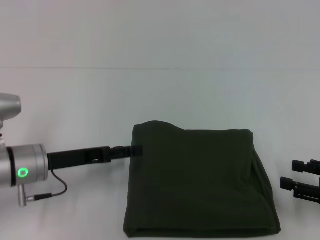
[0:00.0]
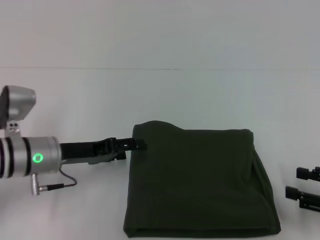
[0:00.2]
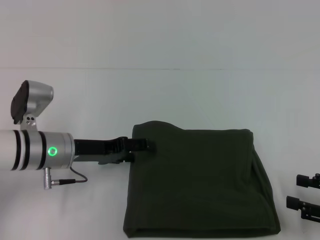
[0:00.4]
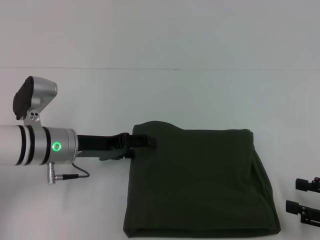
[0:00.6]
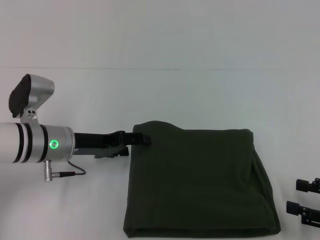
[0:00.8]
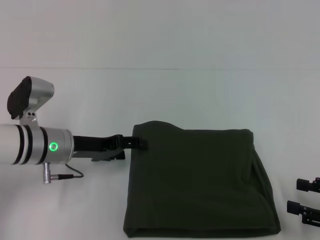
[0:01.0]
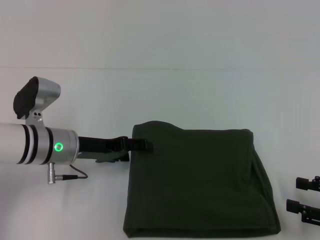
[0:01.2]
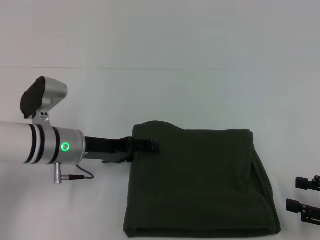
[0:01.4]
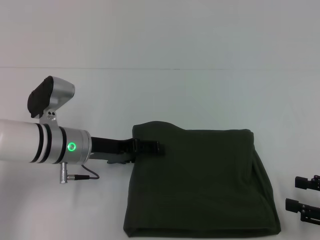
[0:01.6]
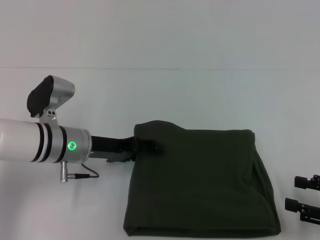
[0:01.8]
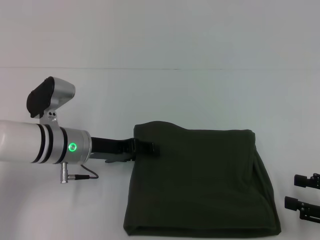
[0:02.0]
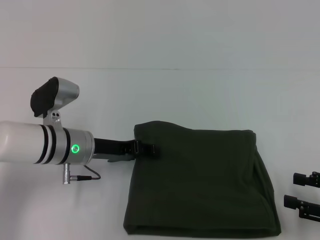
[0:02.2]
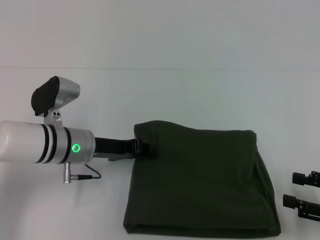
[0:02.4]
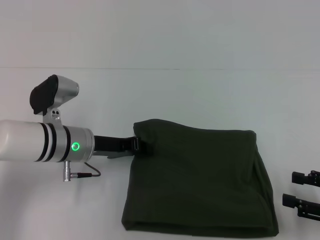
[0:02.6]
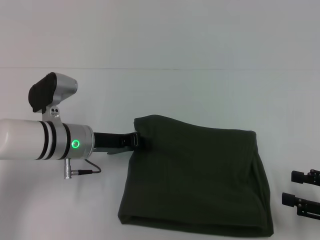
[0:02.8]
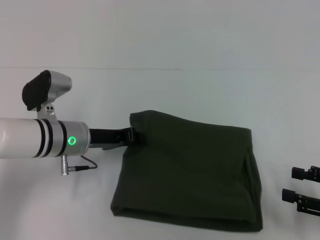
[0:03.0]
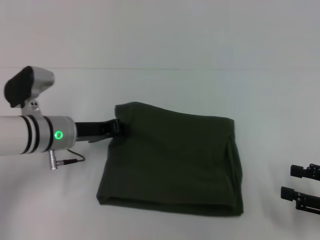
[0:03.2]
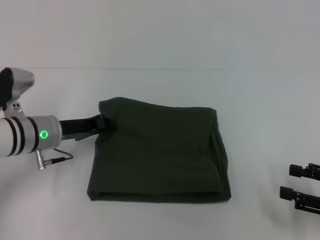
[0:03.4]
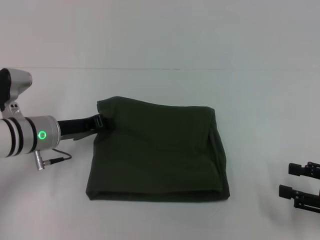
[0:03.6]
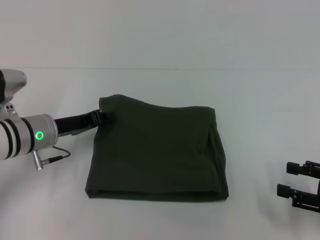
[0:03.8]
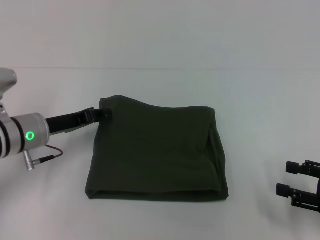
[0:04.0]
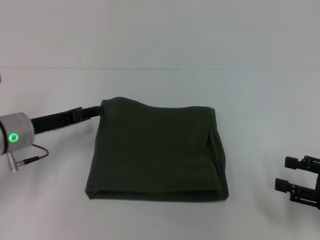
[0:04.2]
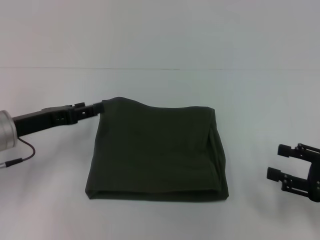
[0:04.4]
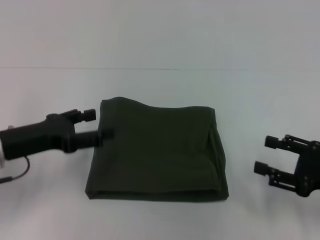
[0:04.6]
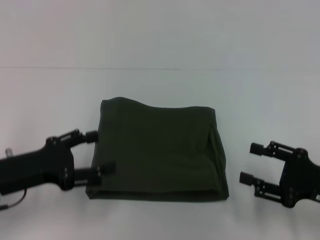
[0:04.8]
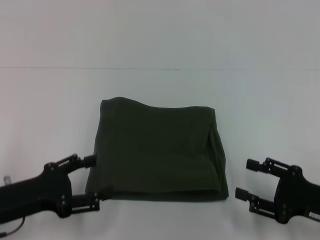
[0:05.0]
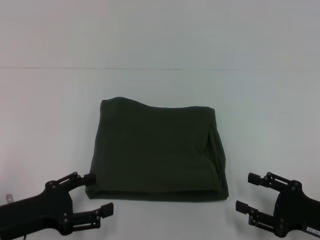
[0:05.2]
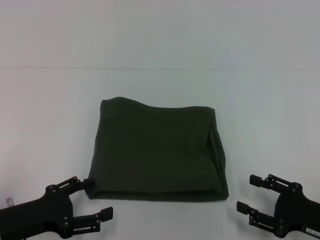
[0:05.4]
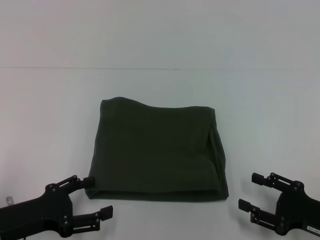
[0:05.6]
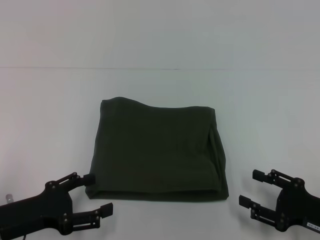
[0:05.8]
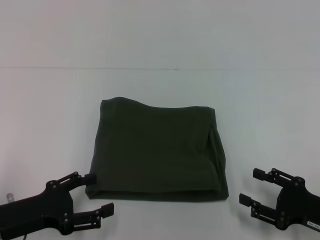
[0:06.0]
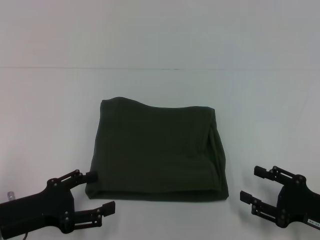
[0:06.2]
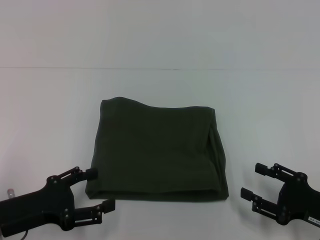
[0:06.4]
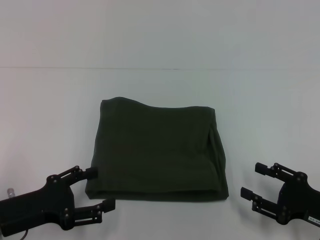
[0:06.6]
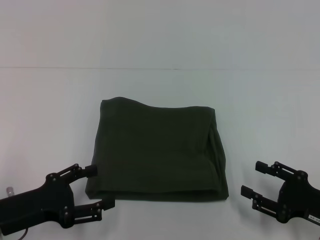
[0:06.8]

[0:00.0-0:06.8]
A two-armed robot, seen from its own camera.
0:00.0 to 0:01.4: The left gripper shifts by approximately 5 cm.
0:01.4 to 0:02.8: The left gripper closes its fingers.
0:02.8 to 0:04.0: The left gripper heads to the left, covering some 5 cm.
0:04.0 to 0:05.4: The left gripper travels backward by approximately 15 cm, and opens its fingers. Meanwhile the right gripper goes approximately 10 cm to the left and downward.
0:05.4 to 0:06.8: Both grippers stay put.

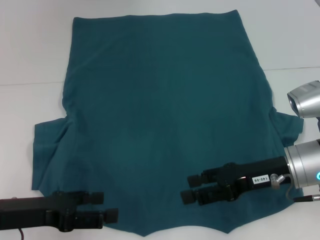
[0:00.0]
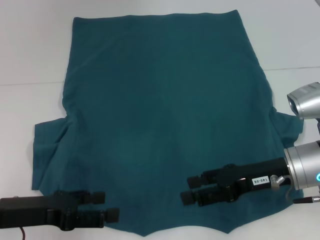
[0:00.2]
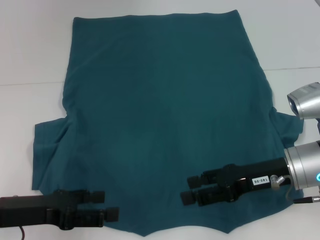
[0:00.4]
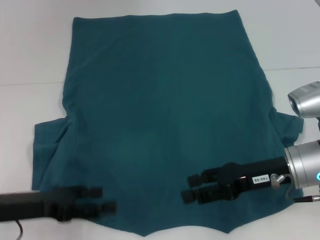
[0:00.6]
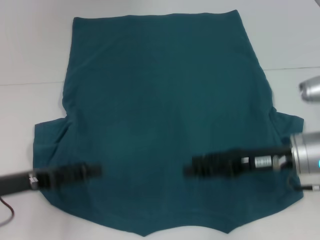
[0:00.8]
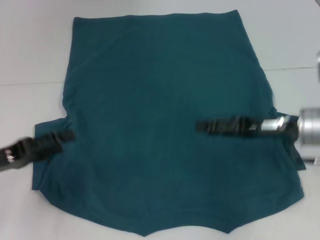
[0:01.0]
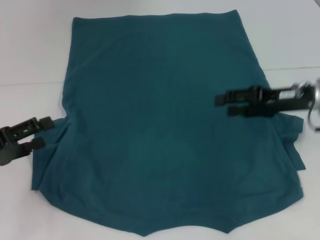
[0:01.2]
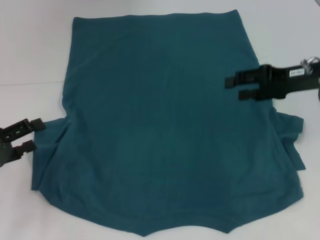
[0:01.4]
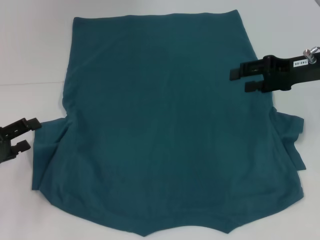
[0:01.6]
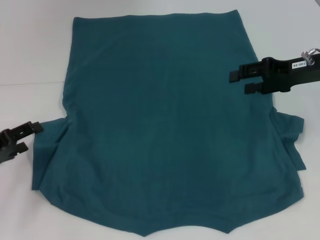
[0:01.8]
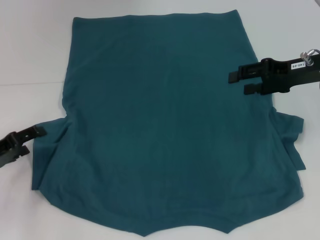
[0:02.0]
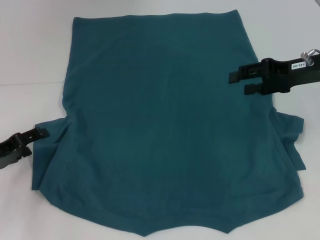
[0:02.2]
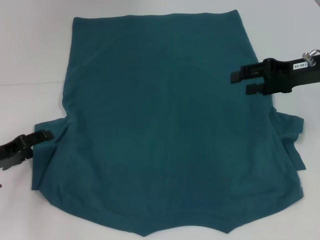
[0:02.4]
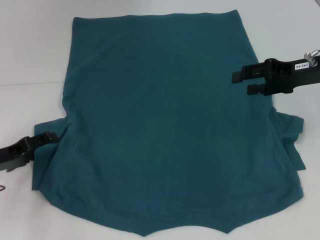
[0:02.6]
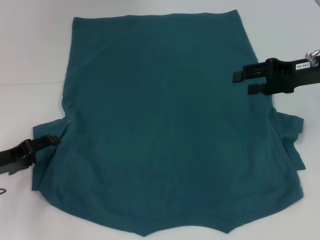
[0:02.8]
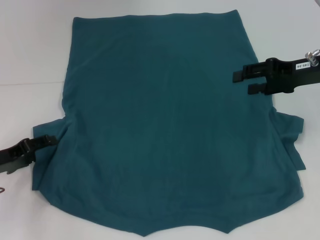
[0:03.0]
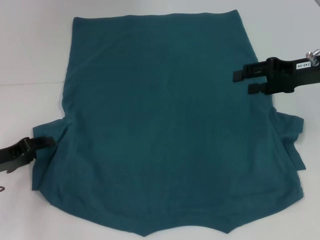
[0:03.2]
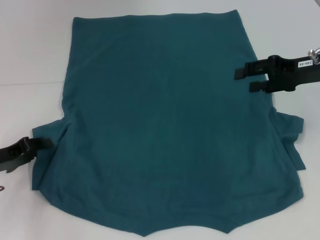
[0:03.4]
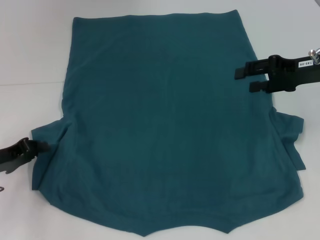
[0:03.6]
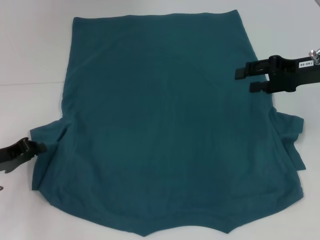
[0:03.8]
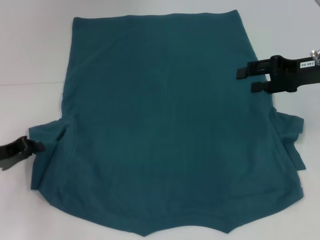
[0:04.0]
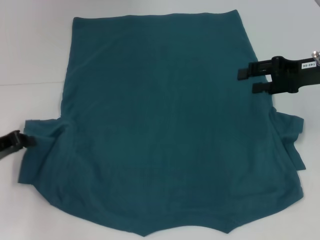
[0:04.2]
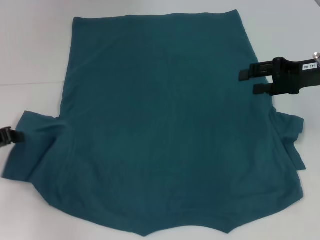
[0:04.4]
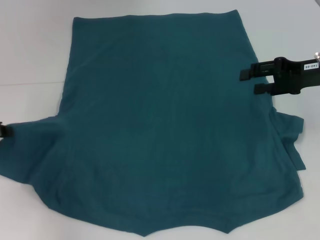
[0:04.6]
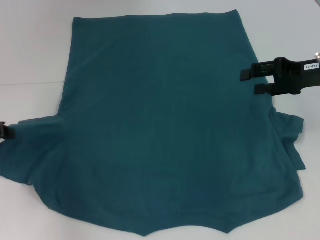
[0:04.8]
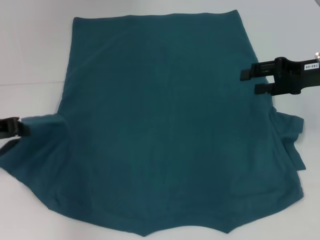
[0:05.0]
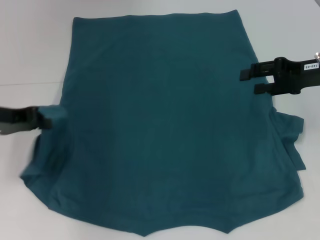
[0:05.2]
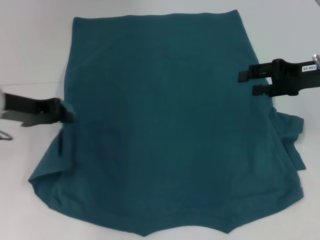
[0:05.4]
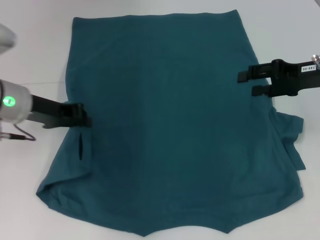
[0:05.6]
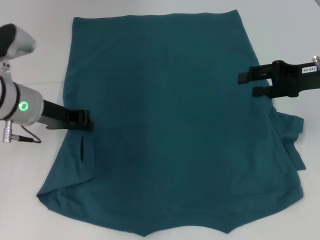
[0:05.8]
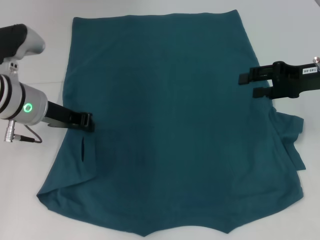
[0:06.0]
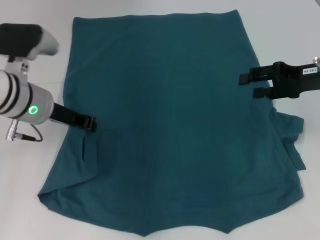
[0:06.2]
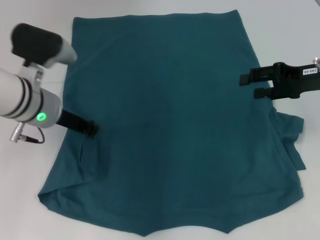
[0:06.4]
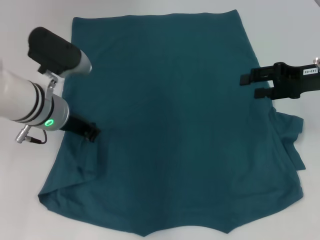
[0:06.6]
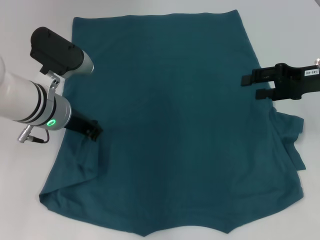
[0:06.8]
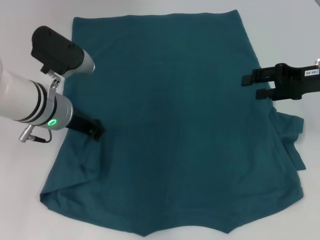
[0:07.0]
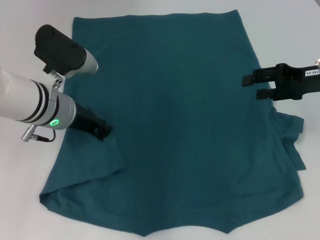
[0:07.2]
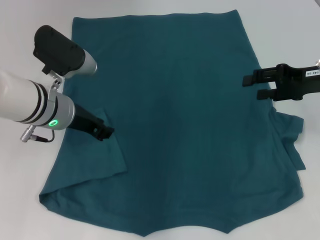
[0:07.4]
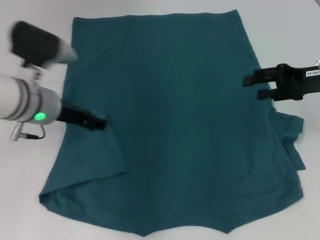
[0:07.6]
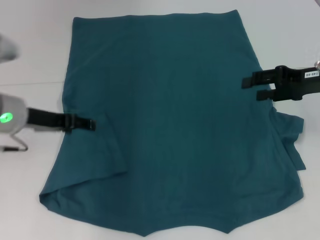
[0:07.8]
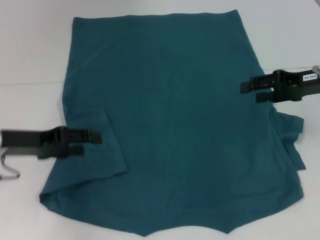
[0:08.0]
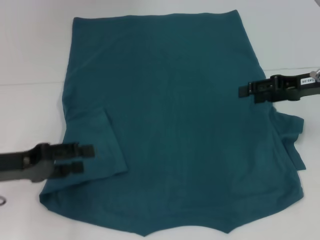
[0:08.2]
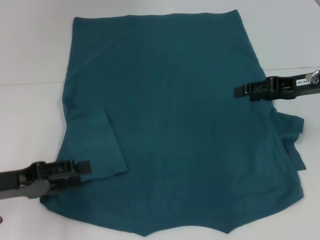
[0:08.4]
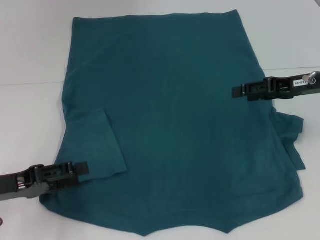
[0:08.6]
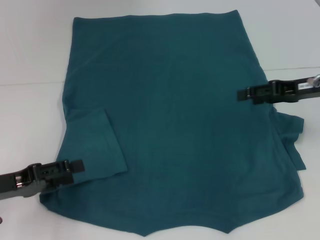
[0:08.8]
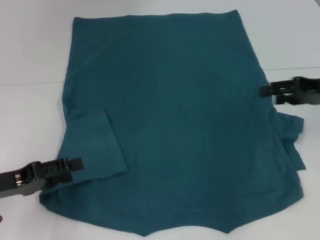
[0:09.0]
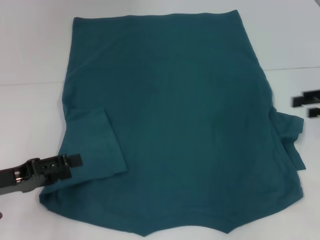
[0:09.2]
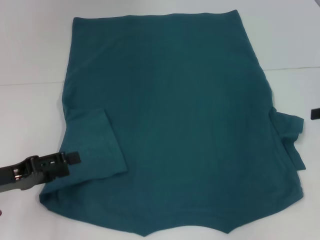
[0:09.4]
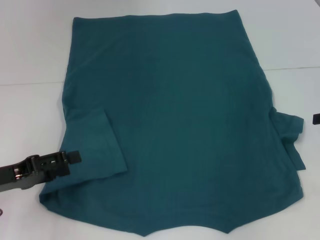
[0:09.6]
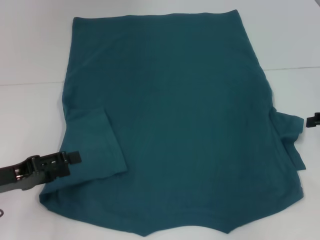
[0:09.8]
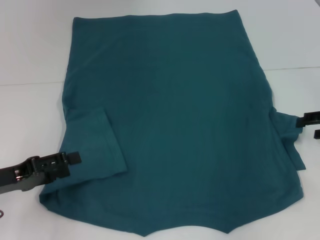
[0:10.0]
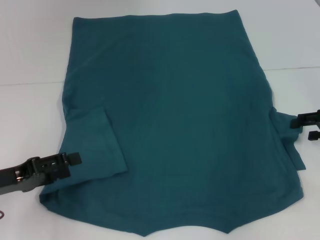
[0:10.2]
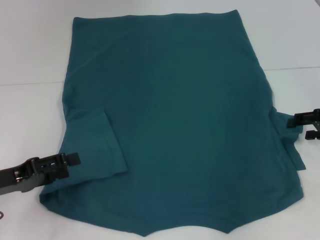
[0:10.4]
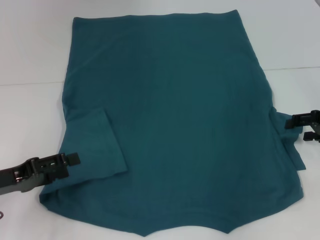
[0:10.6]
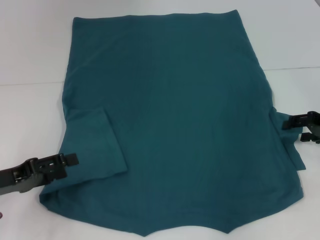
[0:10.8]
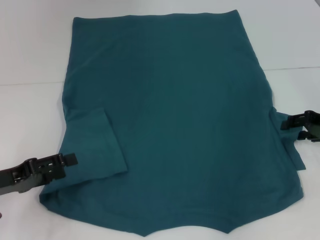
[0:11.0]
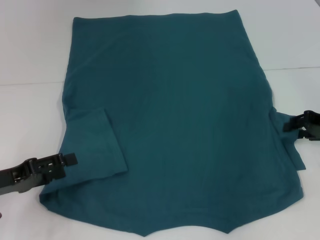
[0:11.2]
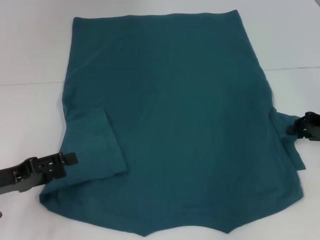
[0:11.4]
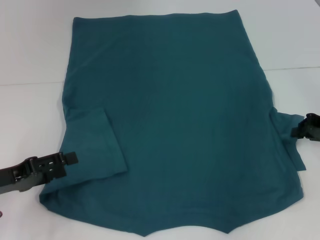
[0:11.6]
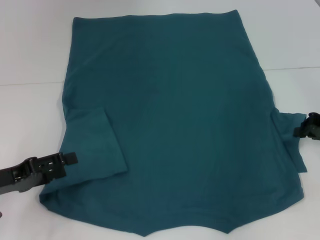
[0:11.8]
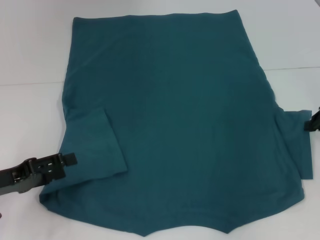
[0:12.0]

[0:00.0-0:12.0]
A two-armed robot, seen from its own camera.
Step, 0:00.0 to 0:07.4: Fold the bottom left sleeve with your left hand.
0:00.0 to 0:01.6: The right gripper travels forward, upward and to the right by about 15 cm; the left gripper heads to the left, covering some 10 cm.
0:01.6 to 0:03.0: The grippers stay close to where they were, moving slightly.
0:03.0 to 0:04.4: The left gripper changes place by roughly 5 cm, and closes up.
0:04.4 to 0:06.0: The left gripper goes about 15 cm to the right and upward.
0:06.0 to 0:07.6: The left gripper opens.
0:07.6 to 0:09.0: The left gripper shifts some 20 cm backward, to the left and downward, and opens up.
0:09.0 to 0:10.4: The right gripper goes some 5 cm downward.
0:10.4 to 0:12.0: The right gripper closes up.

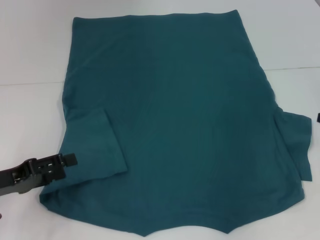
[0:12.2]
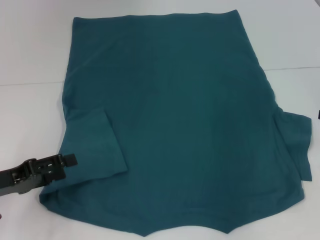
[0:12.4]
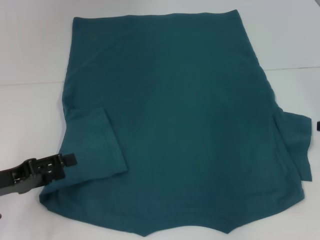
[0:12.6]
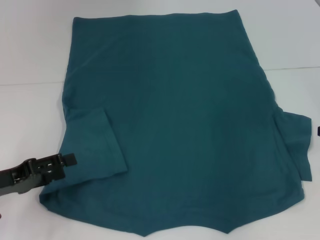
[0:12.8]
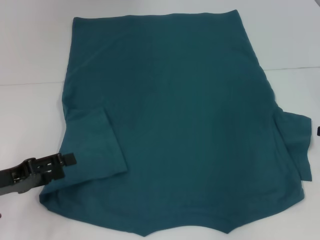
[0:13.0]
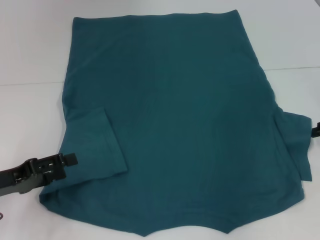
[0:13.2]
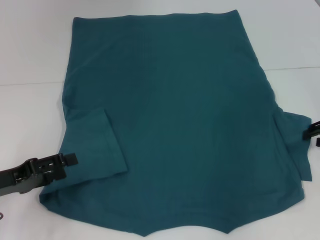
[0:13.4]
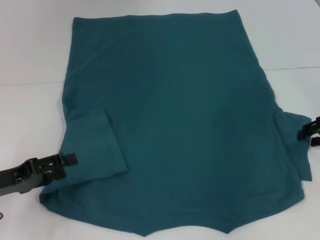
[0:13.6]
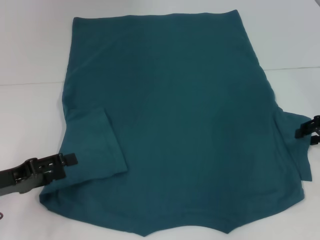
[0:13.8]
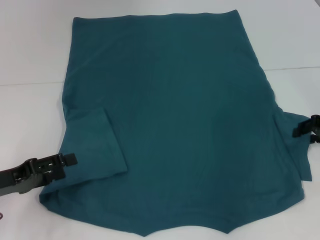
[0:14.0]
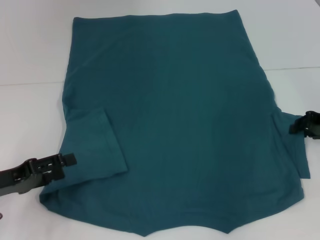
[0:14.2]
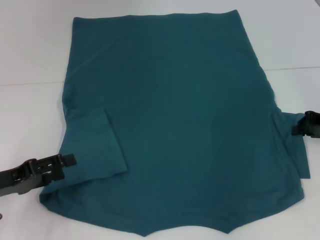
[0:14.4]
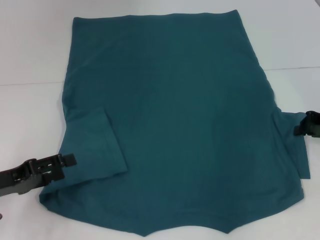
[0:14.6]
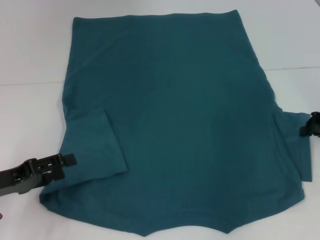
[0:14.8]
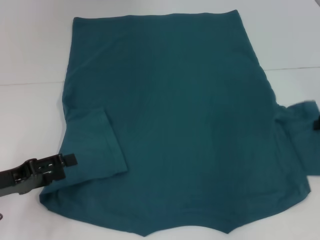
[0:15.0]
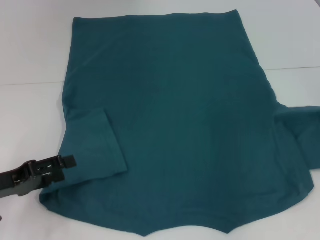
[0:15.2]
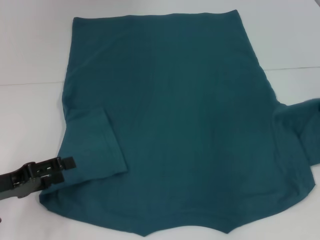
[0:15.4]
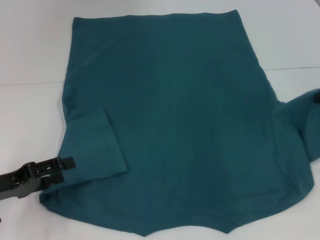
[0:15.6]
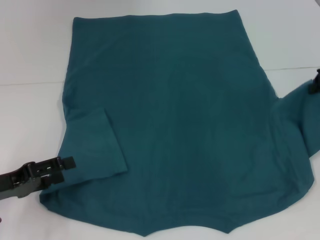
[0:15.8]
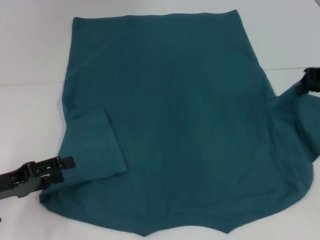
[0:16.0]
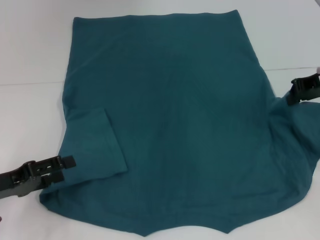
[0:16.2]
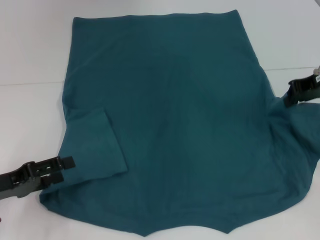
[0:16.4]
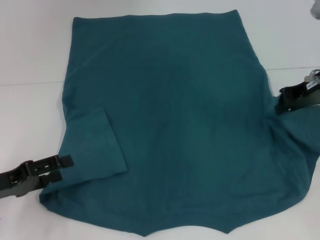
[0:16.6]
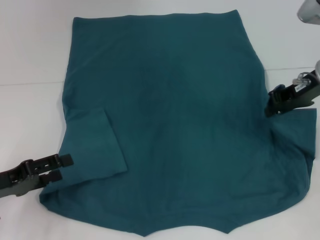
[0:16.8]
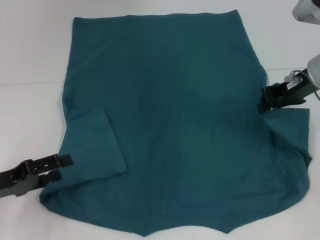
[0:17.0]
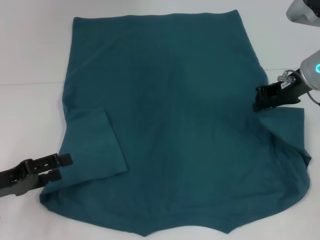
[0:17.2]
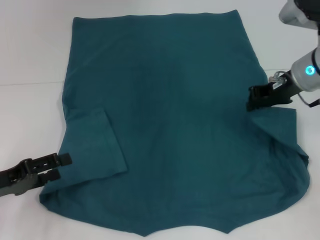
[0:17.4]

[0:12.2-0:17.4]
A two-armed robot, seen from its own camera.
0:12.2 to 0:14.0: The right gripper opens.
0:14.0 to 0:15.6: The right gripper is displaced upward by approximately 5 cm, and closes up.
0:15.6 to 0:17.4: The right gripper heads to the left, covering about 10 cm.
